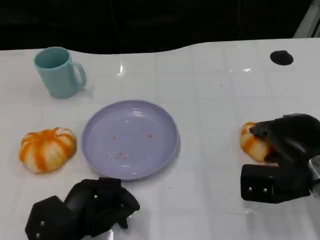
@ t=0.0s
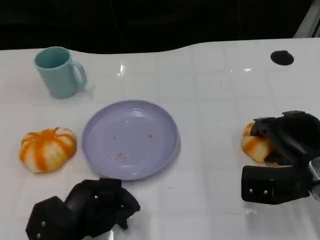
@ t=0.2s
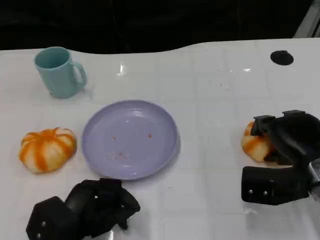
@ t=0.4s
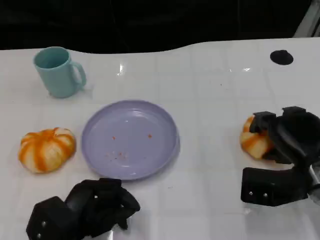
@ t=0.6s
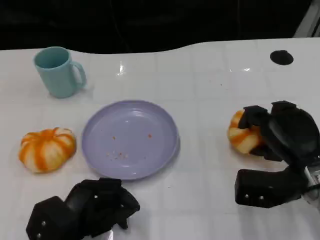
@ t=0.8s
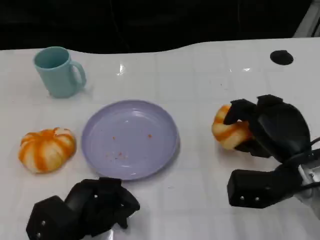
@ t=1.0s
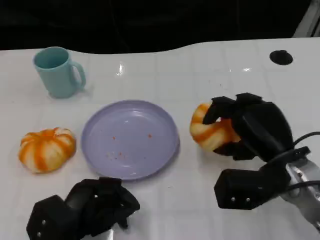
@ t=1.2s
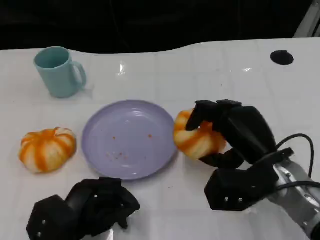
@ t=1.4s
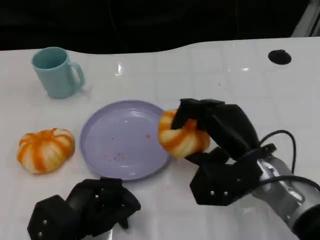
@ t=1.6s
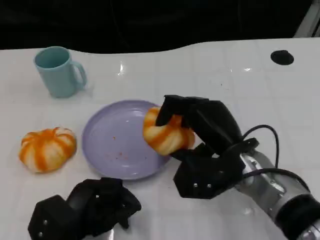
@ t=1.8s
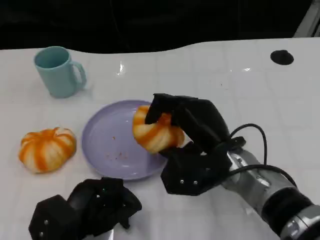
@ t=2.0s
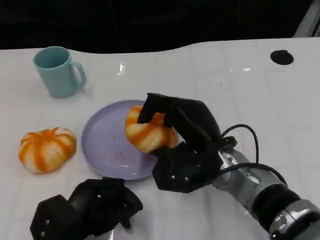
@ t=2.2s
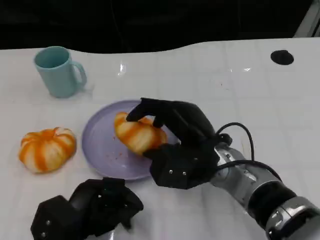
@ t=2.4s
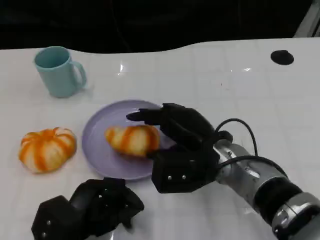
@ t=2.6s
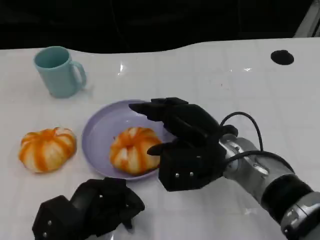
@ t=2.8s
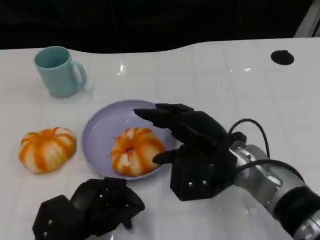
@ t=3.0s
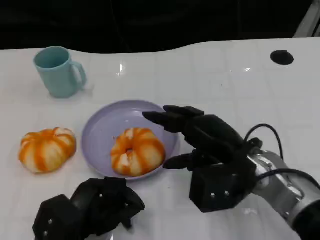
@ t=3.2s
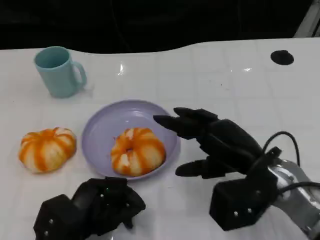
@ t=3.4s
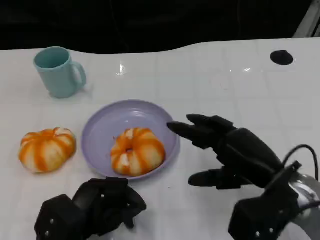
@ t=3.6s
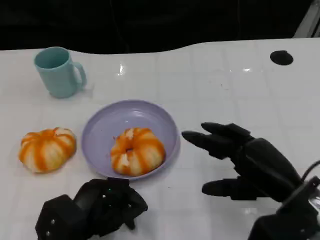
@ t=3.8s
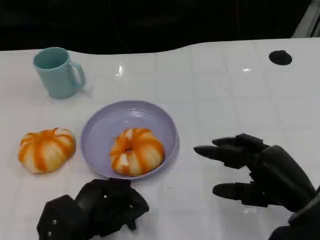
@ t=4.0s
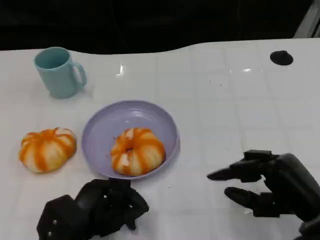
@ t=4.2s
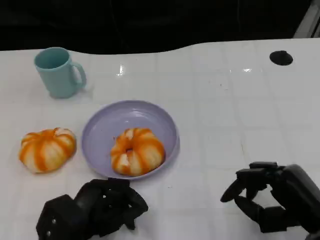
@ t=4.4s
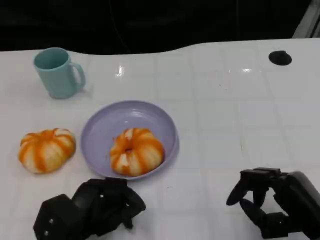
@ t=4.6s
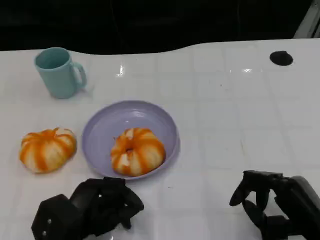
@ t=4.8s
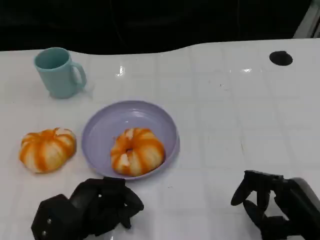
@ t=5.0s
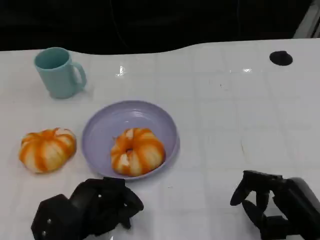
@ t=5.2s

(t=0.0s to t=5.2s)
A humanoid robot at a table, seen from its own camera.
Task of the whole recording: Grasp the bread from the table and place it into the plate.
t=0.0s - t=1.8s: The right hand travels to the left by about 10 cm.
t=1.8s - t=3.4s: The right hand is displaced to the right by roughly 5 cm.
t=3.4s - t=5.2s: The right hand shifts approximately 10 cm backward, to the right and downward.

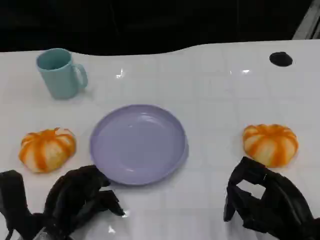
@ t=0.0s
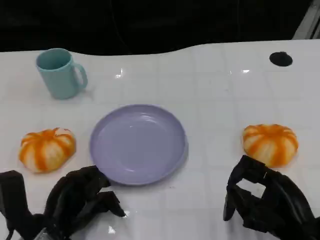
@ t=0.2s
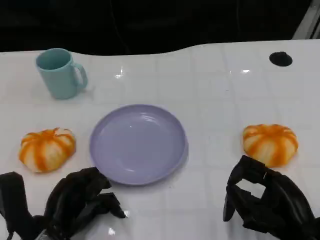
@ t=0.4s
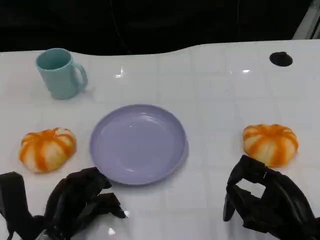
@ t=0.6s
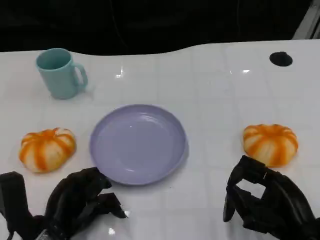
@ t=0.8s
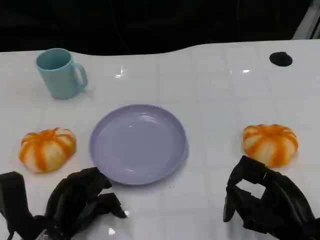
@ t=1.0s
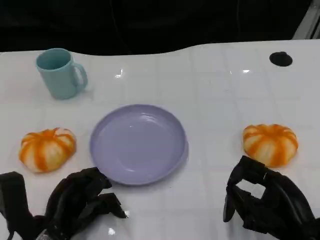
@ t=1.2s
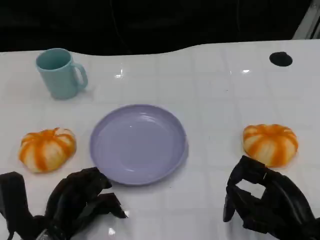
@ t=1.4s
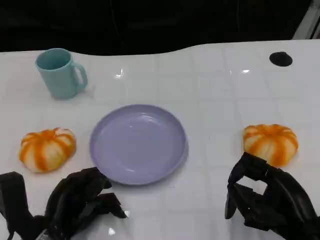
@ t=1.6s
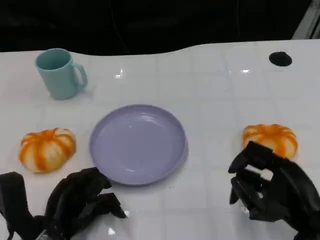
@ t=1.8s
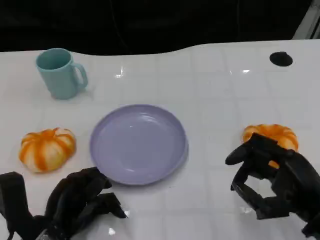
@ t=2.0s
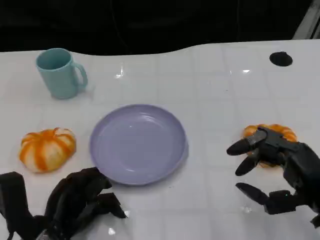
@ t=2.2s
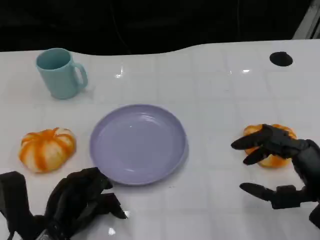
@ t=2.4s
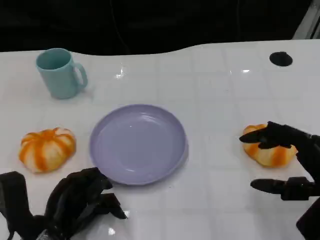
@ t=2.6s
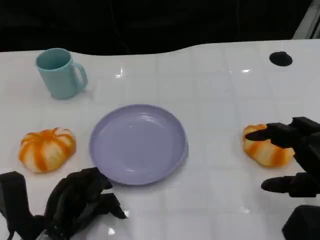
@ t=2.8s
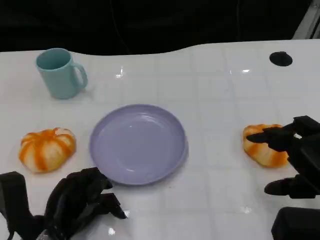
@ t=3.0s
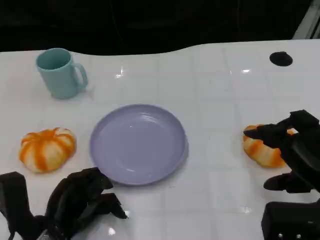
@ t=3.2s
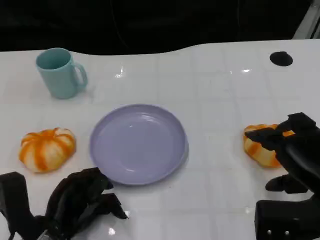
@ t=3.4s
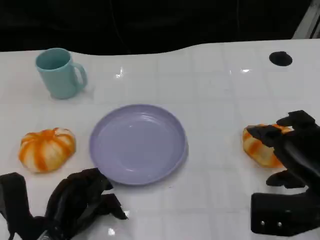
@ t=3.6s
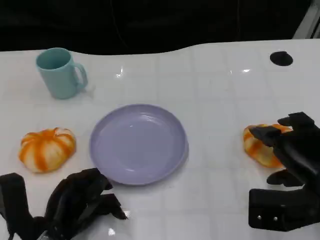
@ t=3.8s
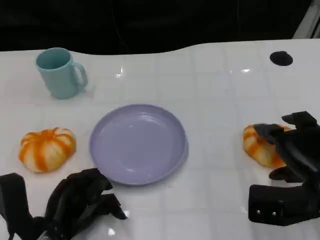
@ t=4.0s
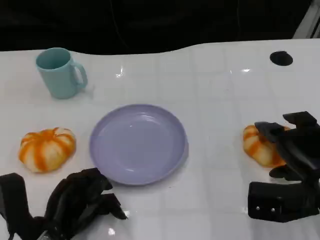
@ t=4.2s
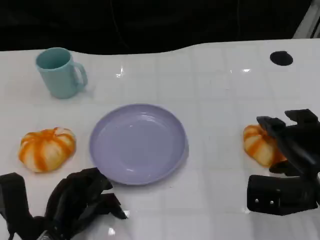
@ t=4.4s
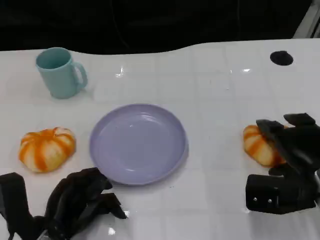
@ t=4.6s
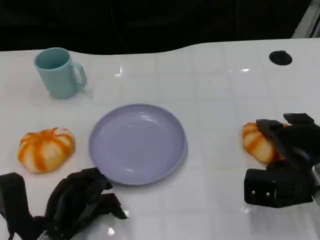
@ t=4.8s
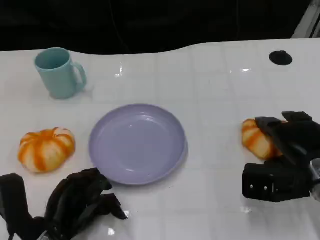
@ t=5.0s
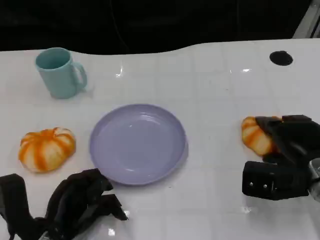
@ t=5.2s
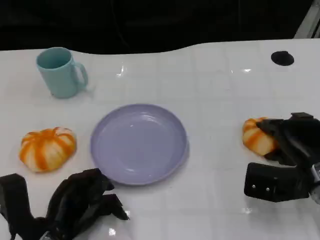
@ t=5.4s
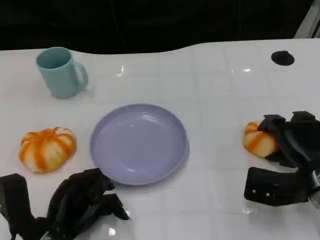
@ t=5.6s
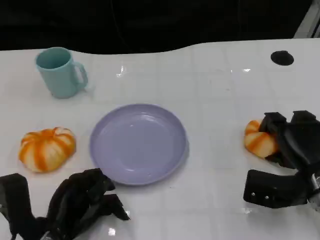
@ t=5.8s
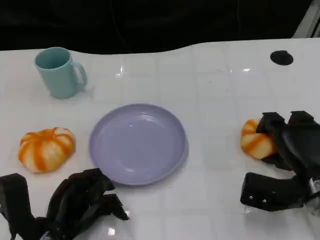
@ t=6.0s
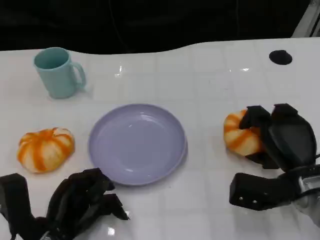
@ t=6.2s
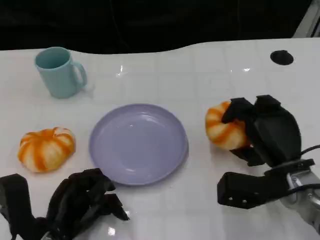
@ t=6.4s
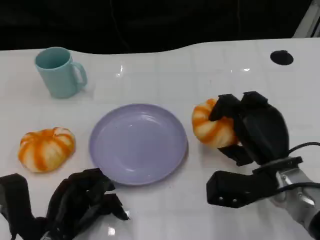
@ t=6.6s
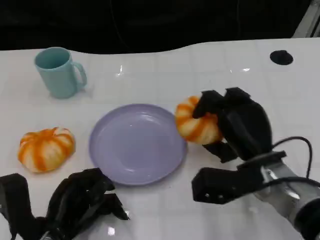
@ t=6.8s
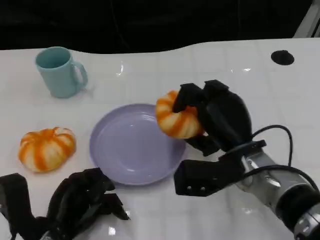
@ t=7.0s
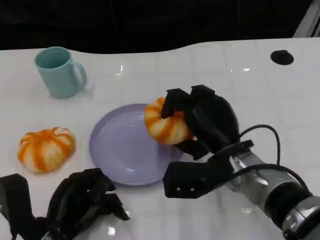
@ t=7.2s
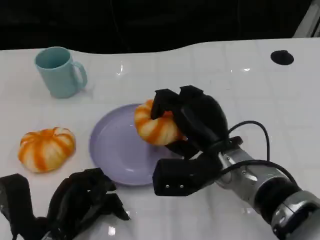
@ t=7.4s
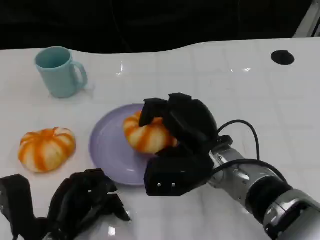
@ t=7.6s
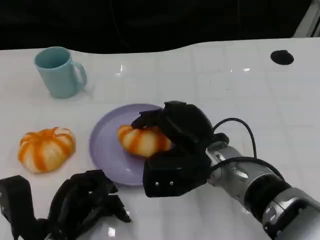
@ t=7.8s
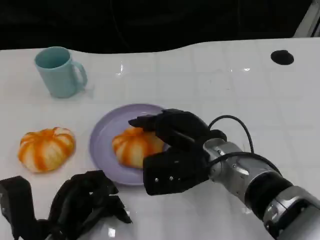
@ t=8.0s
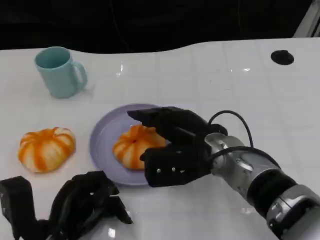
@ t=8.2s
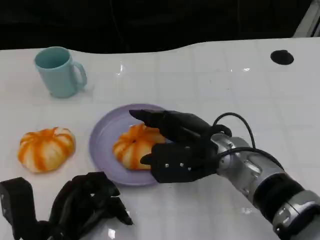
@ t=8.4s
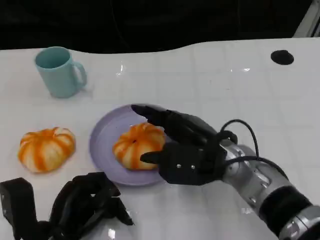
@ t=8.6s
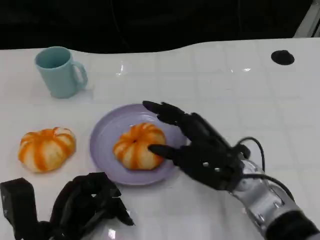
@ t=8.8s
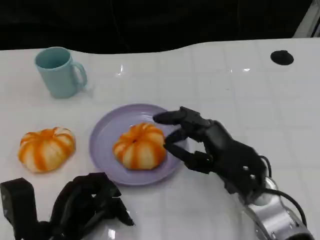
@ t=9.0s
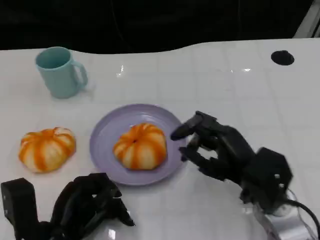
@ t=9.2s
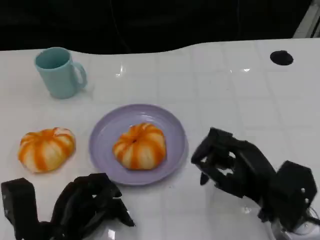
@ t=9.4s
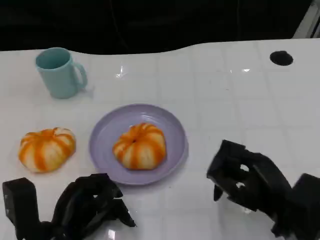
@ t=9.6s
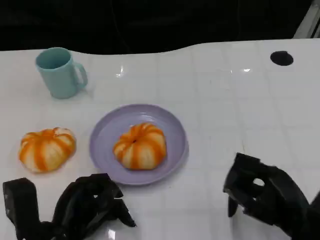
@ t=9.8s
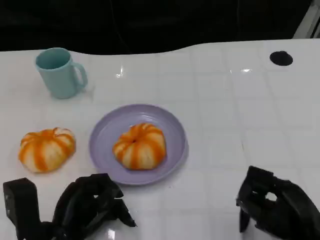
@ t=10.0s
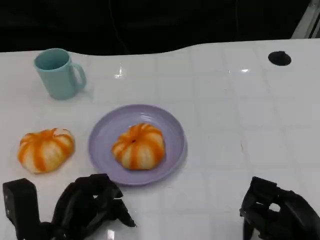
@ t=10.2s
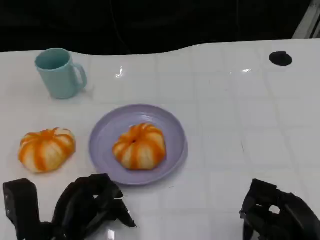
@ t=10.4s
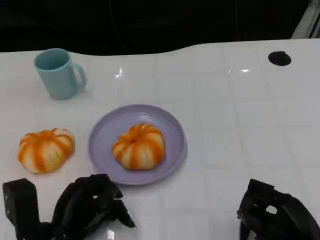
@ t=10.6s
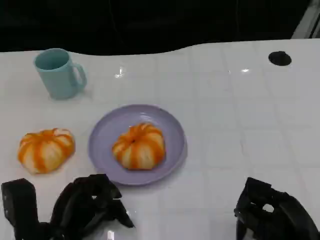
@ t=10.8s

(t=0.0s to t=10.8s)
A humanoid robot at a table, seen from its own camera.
Task of the whole recording: Grasp the bread from the table and place it into the plate.
t=0.0s - t=1.6s: The two hands keep their place.
t=1.6s - t=3.0s: The right hand shifts by some 5 cm.
t=3.0s - t=4.6s: The right hand moves forward and downward, roughly 10 cm.
t=6.2s - t=7.8s: The right hand is displaced to the left by roughly 15 cm.
t=7.8s - t=9.2s: The right hand travels to the right by approximately 10 cm.
t=9.2s - t=10.8s: The right hand travels backward and to the right by about 10 cm.
